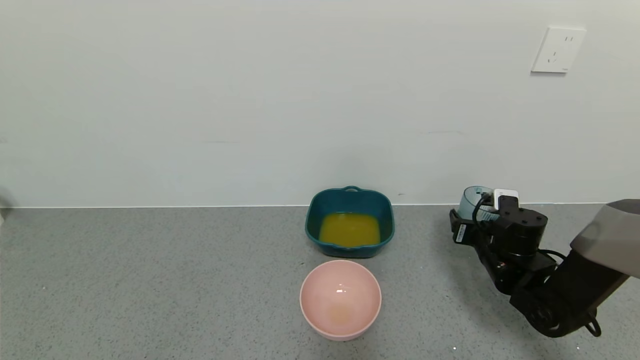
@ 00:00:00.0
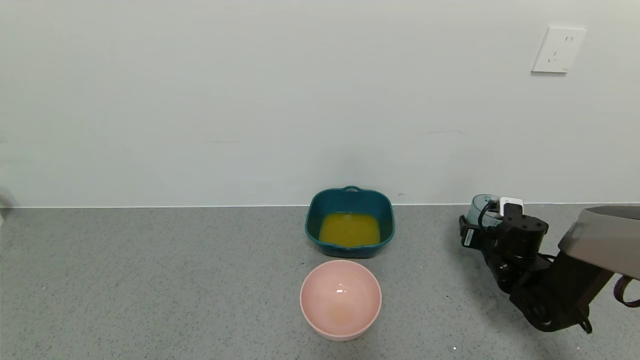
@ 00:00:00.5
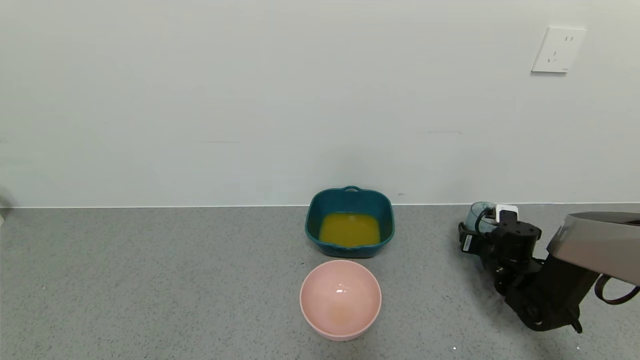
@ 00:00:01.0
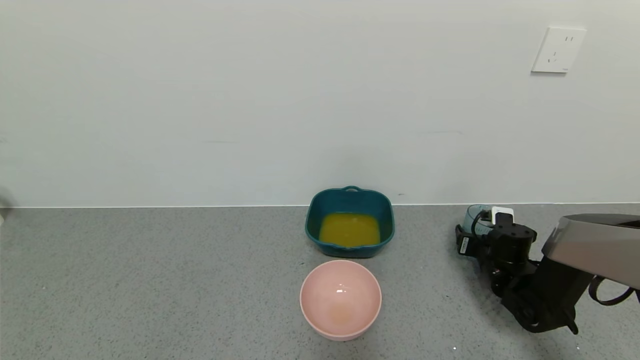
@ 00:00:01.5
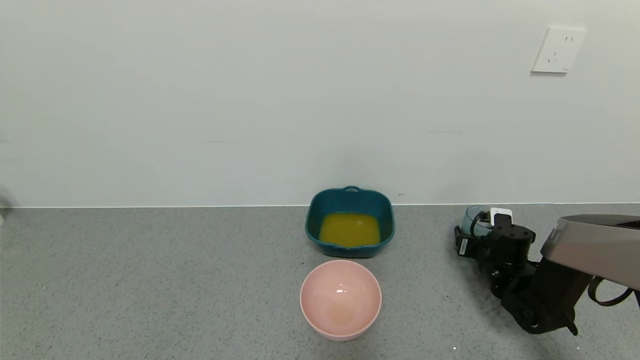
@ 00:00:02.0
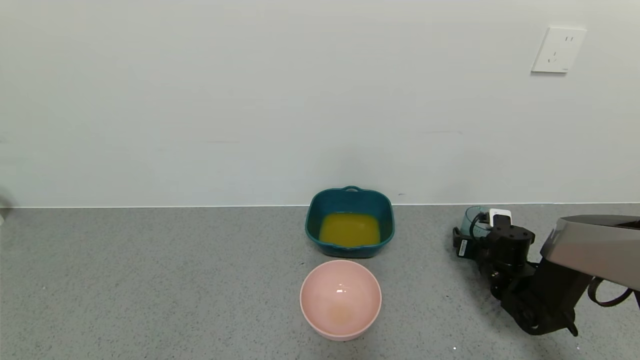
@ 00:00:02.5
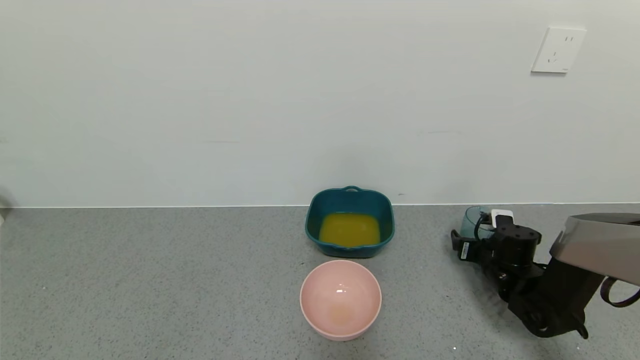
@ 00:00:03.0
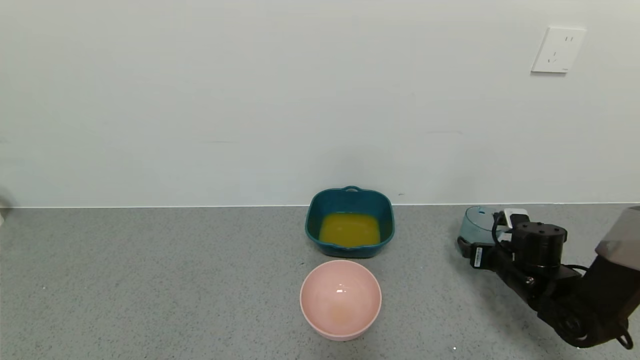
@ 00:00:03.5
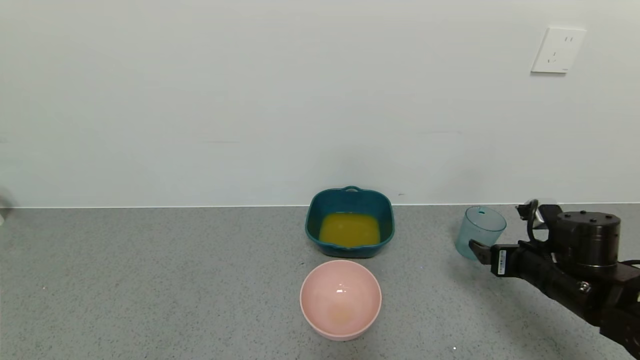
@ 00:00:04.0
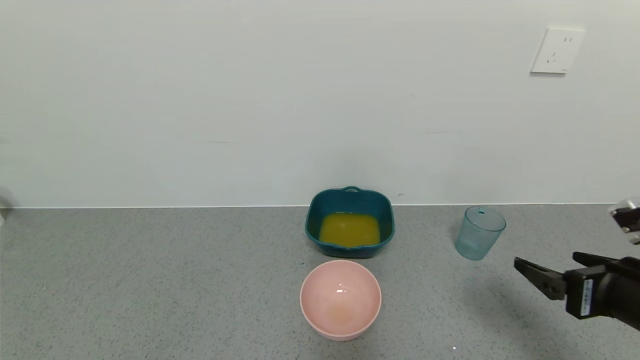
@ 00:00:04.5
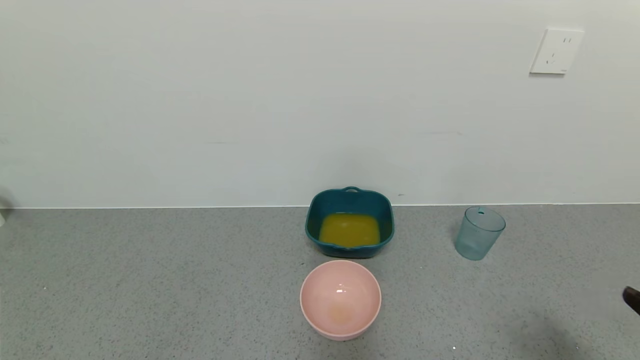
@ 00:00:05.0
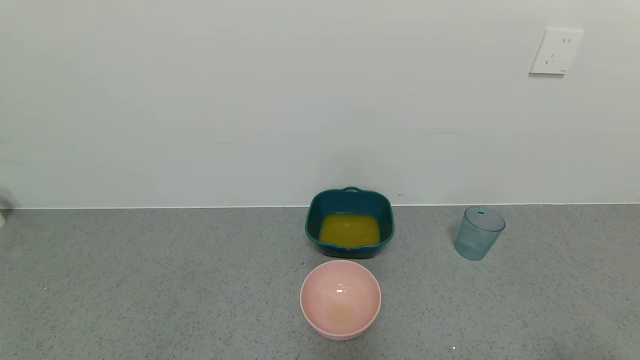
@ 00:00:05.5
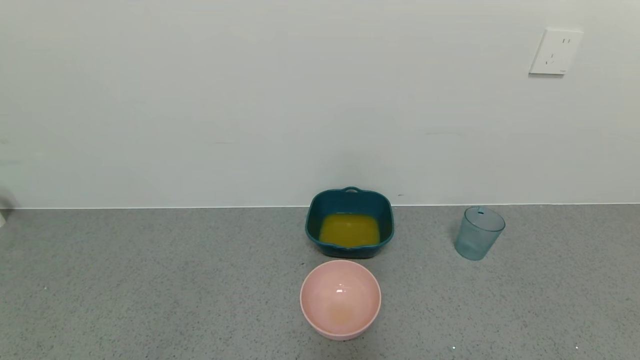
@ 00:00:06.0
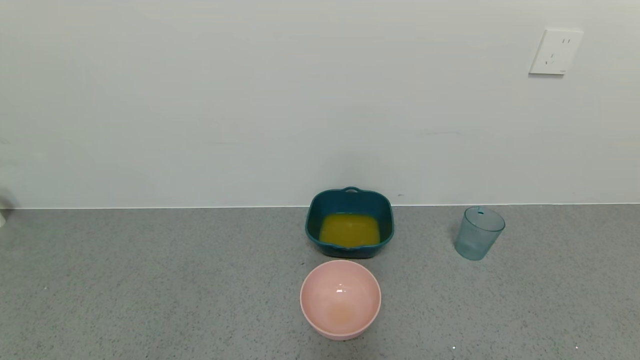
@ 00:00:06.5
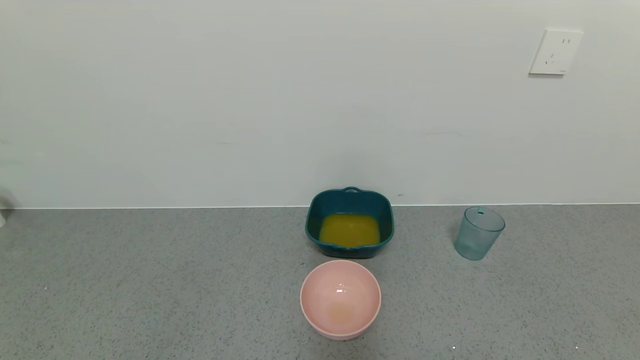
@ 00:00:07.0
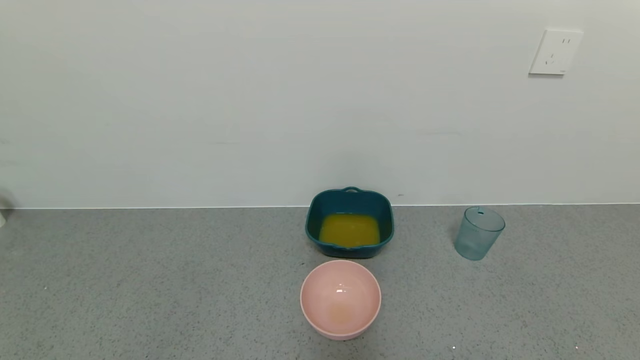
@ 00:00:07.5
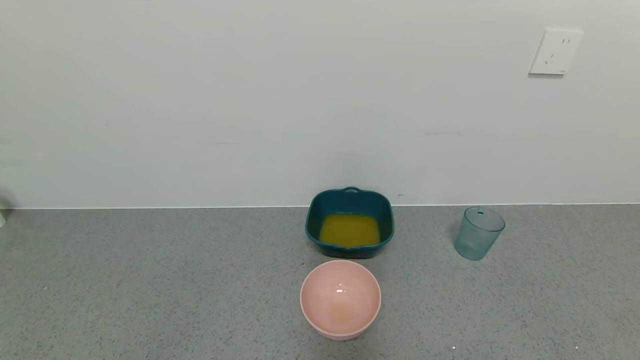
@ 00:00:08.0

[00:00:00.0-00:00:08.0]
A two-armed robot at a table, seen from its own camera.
Task of the whole recording: use a gripper to pick up the cup and pour the liquid into a bowl or tray.
Step, 00:00:00.0 to 00:00:02.0: Place blue cup with orange juice on the table with right gripper.
00:00:00.0 to 00:00:02.0: The right gripper moves downward, roughly 5 cm.
00:00:02.0 to 00:00:04.0: The right gripper goes roughly 15 cm backward and upward, and opens its fingers.
00:00:04.0 to 00:00:06.0: The right gripper goes some 30 cm backward.
